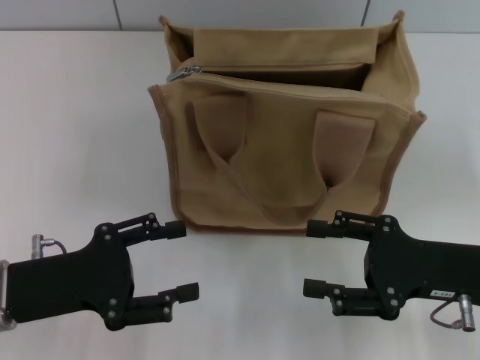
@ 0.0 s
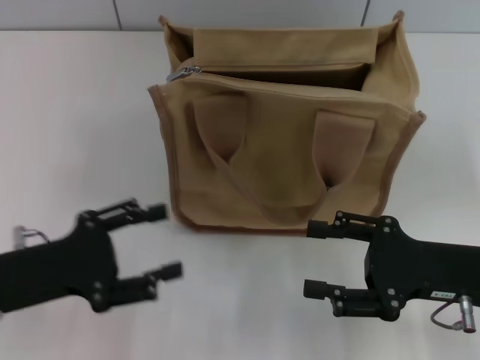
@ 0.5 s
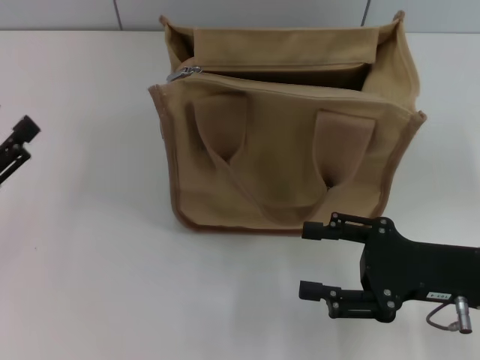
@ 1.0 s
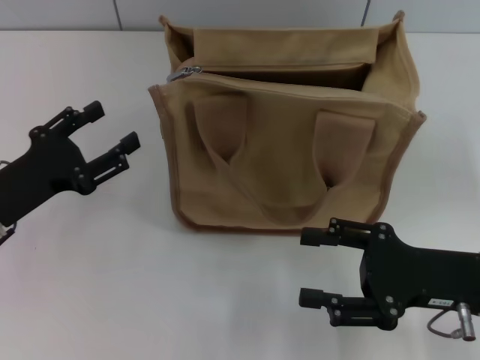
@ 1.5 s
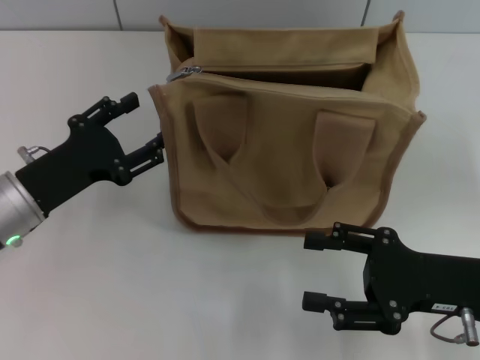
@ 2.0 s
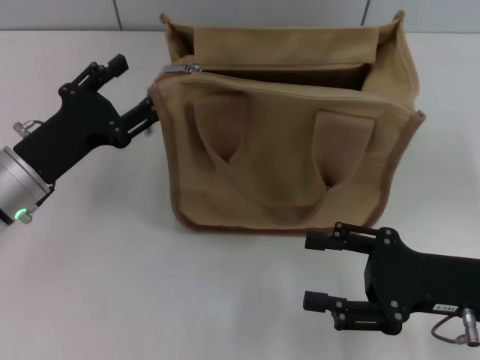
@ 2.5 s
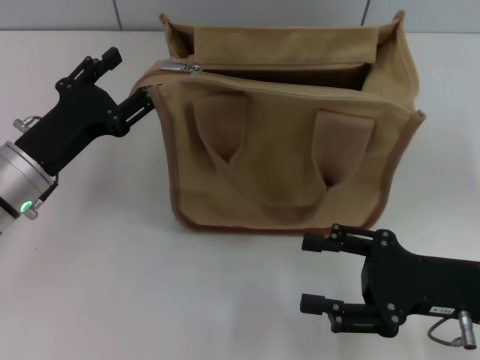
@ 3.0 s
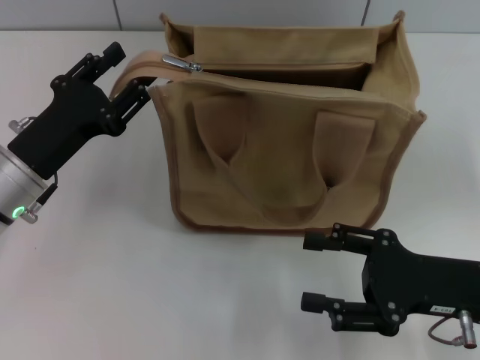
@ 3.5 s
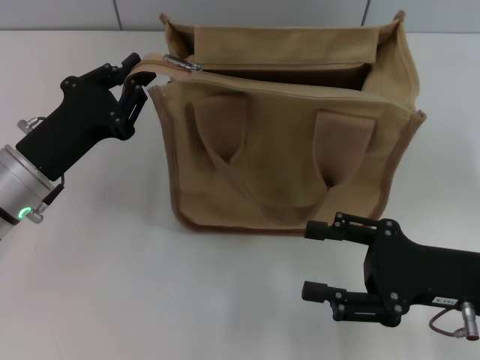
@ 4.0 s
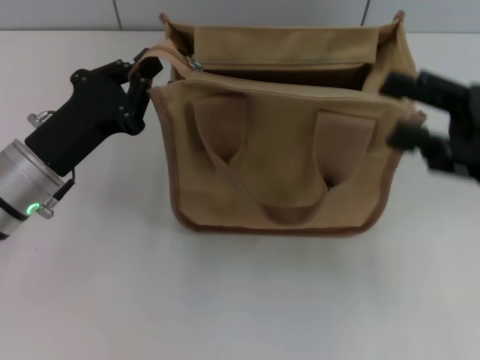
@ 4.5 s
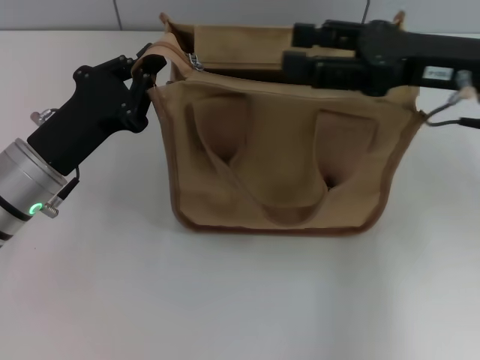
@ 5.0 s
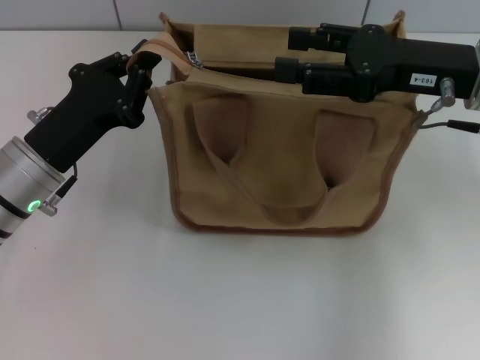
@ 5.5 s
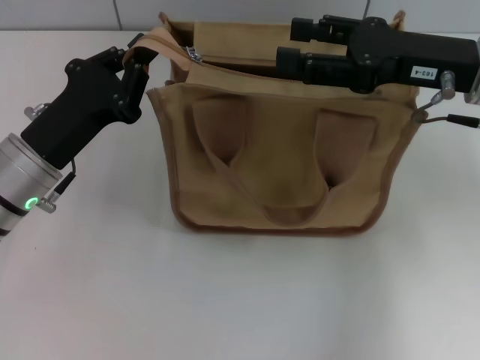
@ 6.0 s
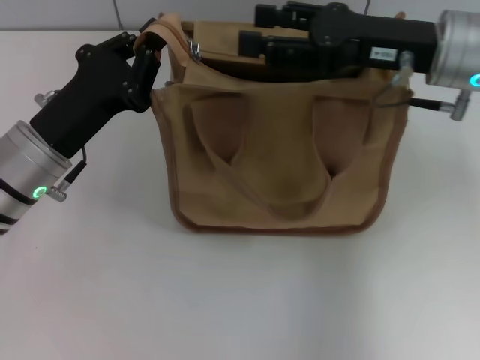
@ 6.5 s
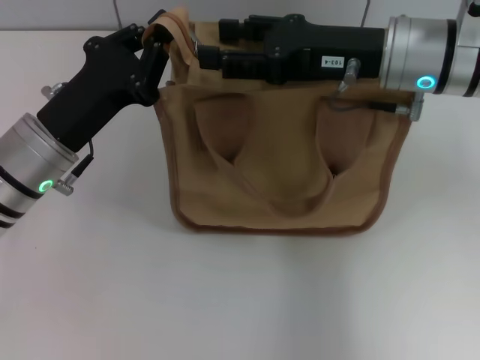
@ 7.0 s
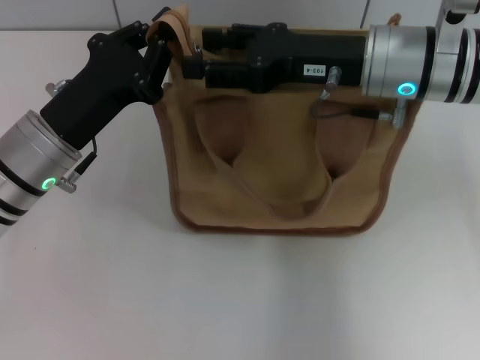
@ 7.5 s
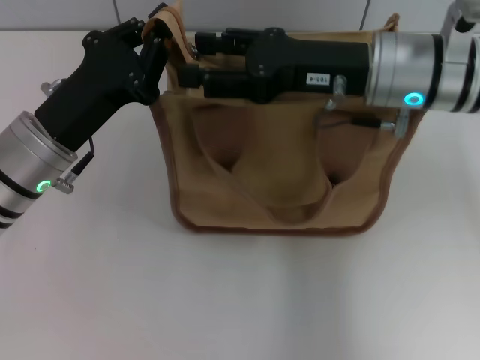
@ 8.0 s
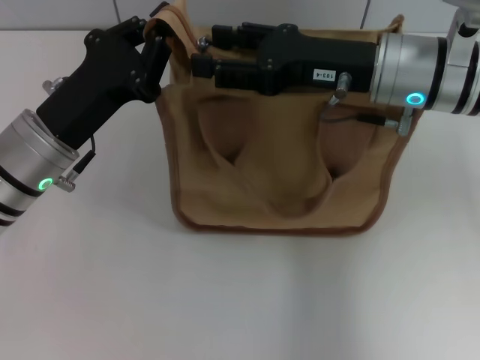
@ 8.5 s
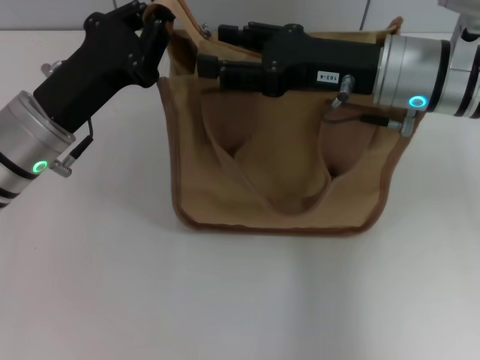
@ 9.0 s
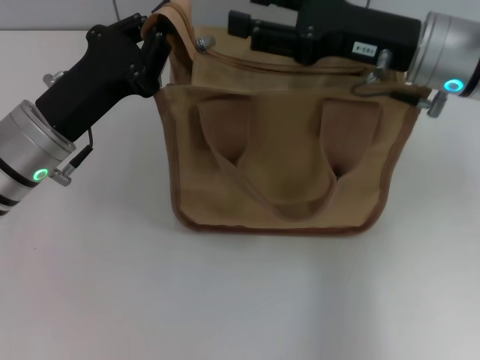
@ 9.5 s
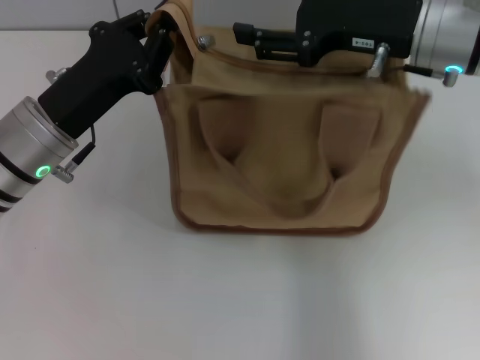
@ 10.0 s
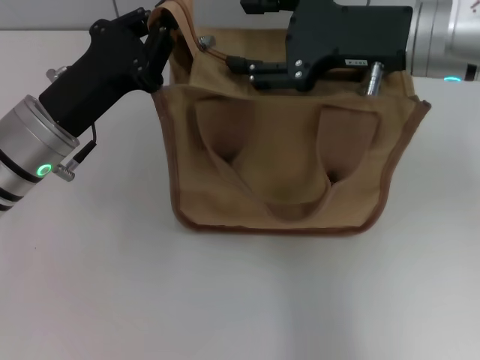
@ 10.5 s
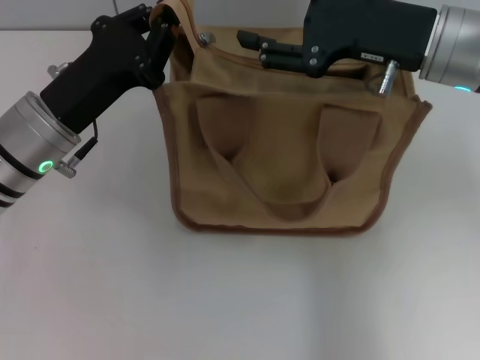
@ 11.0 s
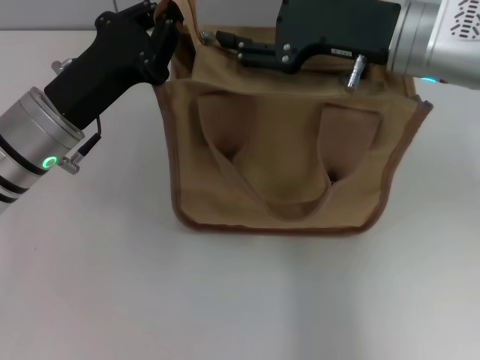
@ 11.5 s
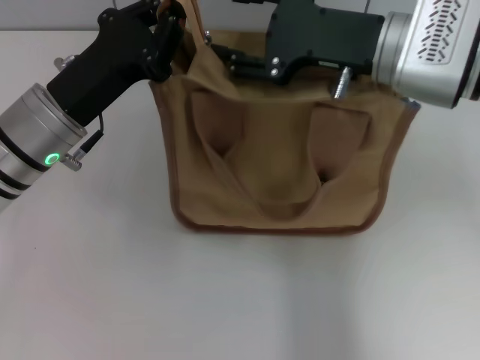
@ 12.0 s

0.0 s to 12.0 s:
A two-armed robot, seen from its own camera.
0.0 to 2.0 s: The left gripper travels forward by some 5 cm, and travels to the left and back again, approximately 10 cm each way.
2.0 to 4.0 s: The left gripper closes up.
4.0 to 6.0 s: The right gripper moves forward and upward, about 15 cm.
6.0 to 8.0 s: The right gripper is displaced to the left by about 10 cm.

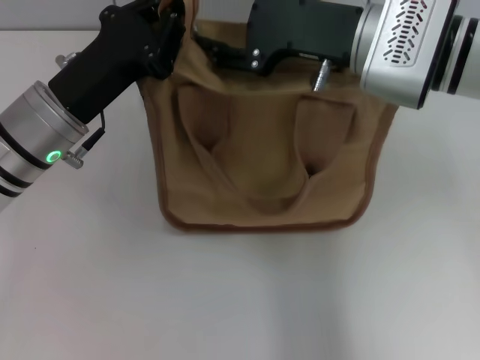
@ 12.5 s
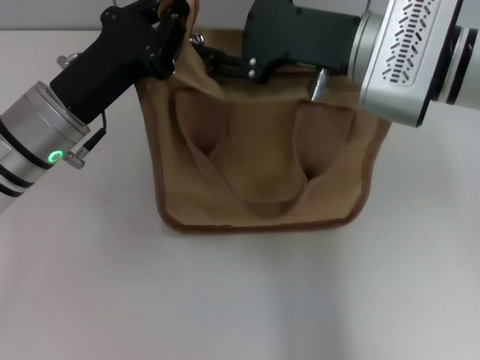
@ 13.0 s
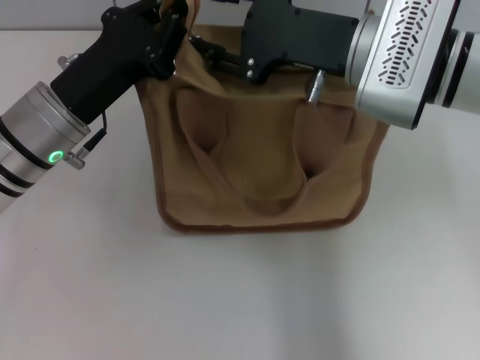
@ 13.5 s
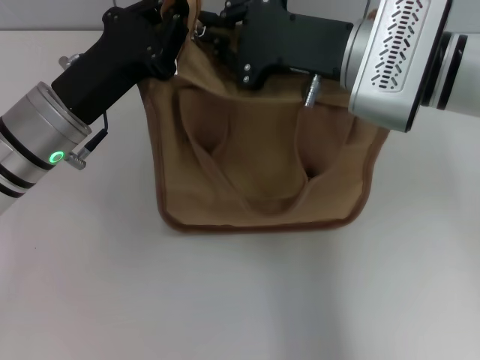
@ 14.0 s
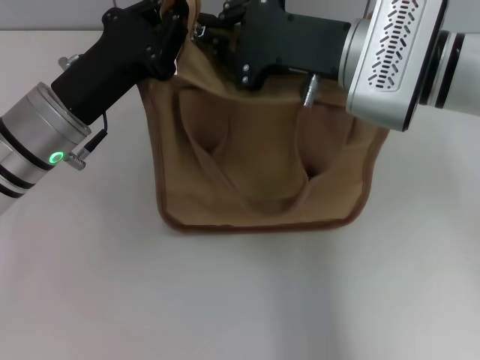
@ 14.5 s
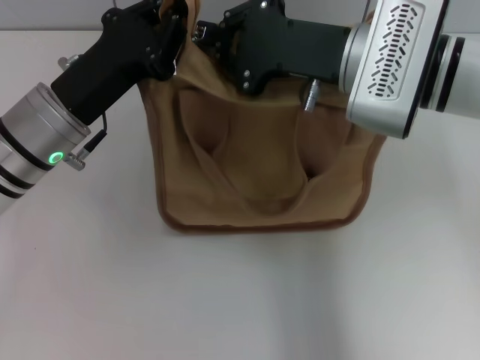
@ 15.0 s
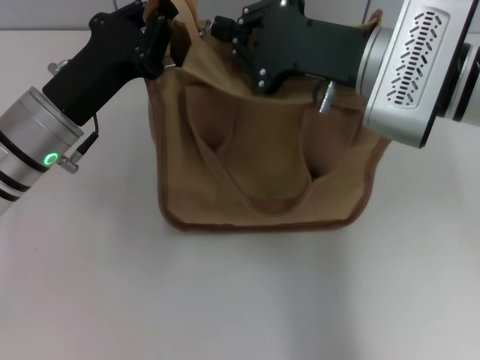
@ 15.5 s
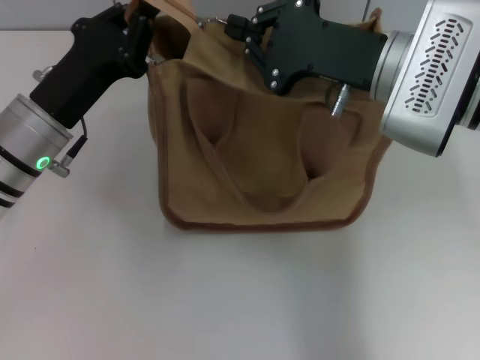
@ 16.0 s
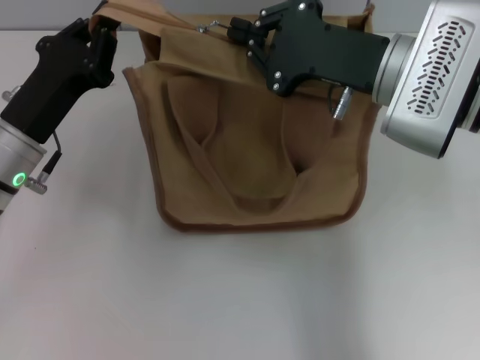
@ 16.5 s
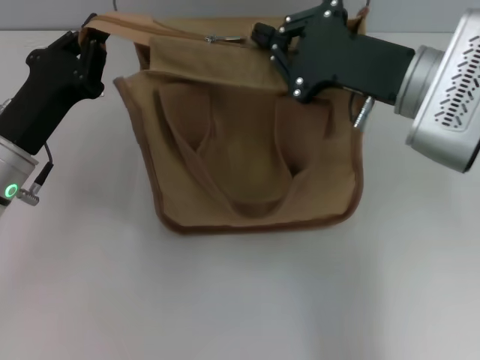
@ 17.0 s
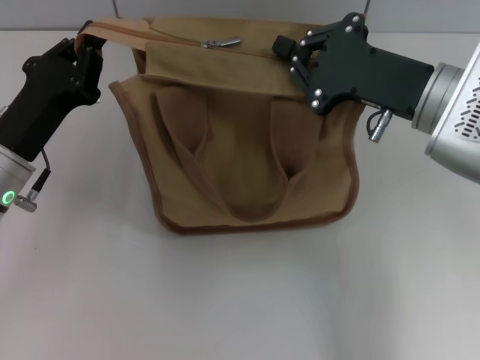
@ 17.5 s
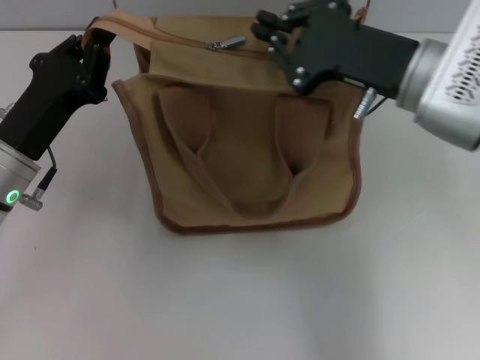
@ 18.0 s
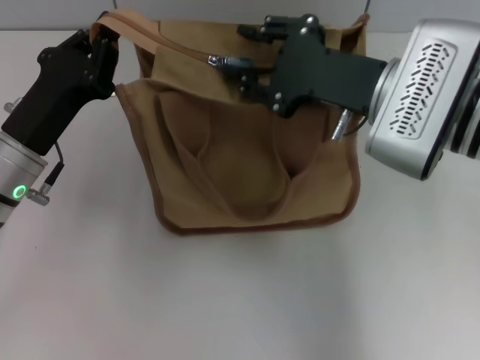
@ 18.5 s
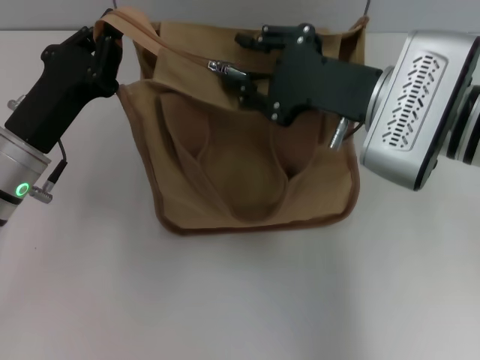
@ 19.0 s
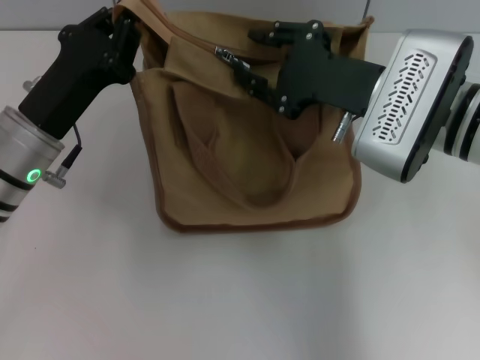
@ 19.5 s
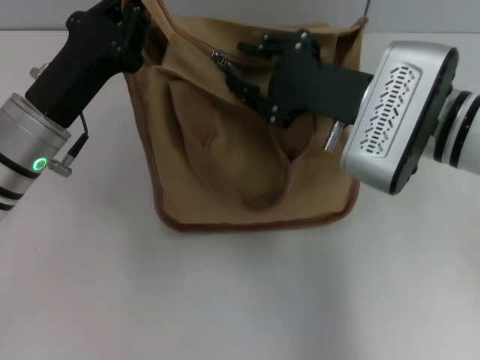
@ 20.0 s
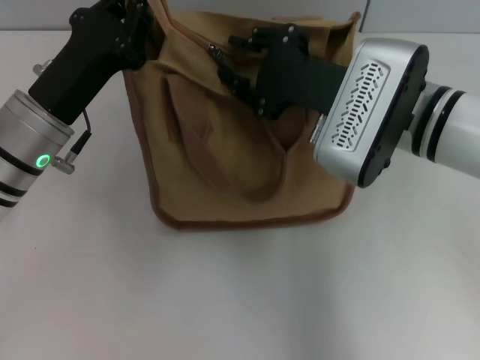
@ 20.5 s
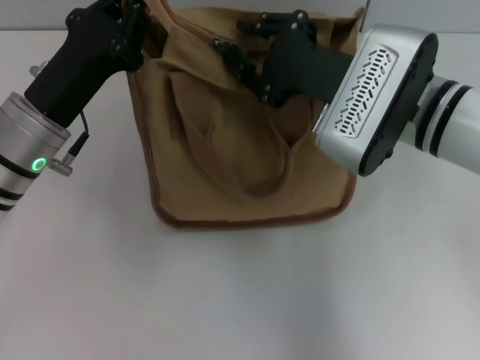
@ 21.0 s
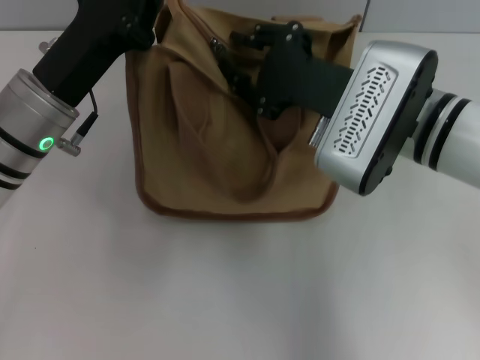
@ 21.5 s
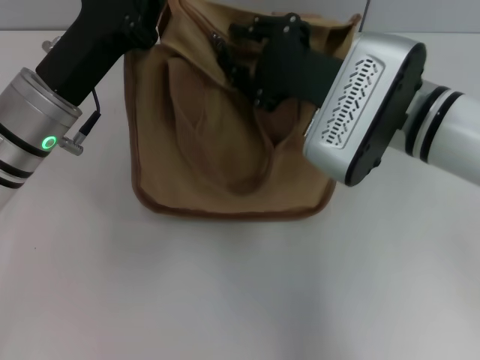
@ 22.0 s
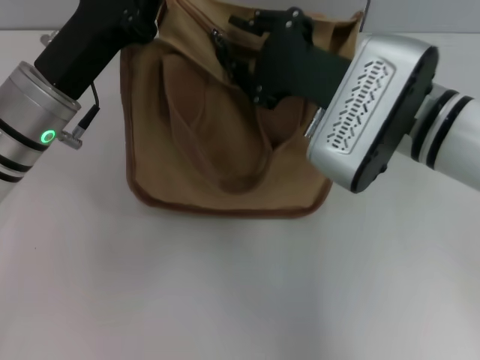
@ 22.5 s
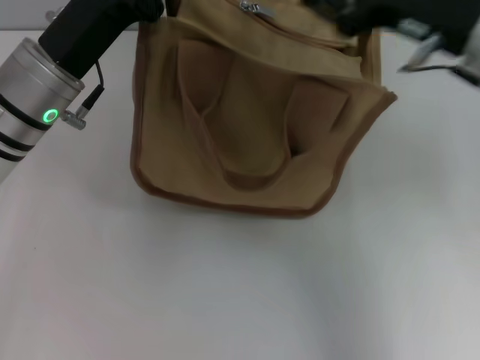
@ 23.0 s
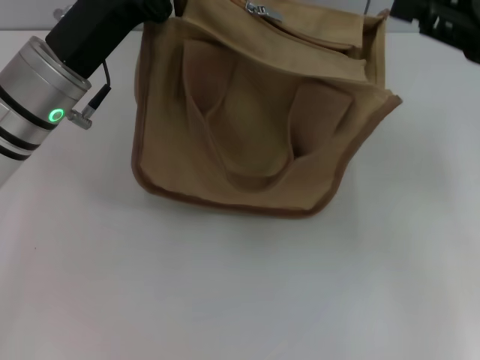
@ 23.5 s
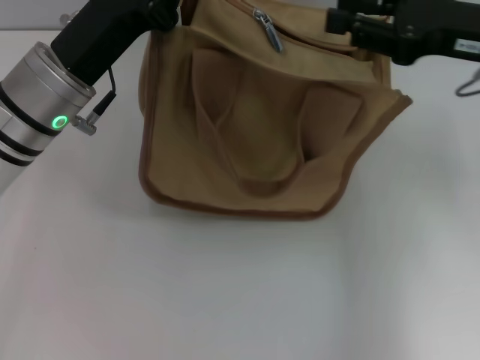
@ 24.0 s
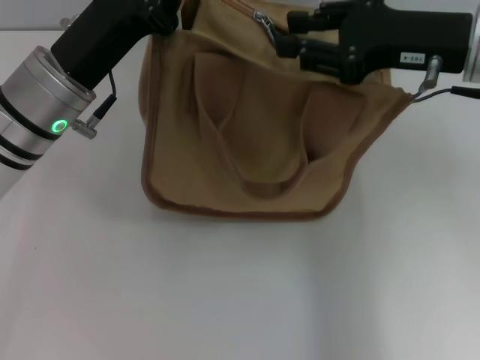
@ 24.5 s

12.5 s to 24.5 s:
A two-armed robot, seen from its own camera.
12.5 to 14.5 s: The right gripper closes up.
16.5 to 18.5 s: The right gripper opens its fingers.
20.5 to 22.5 s: The grippers move only a little.
22.5 to 24.5 s: The right gripper is displaced to the right by approximately 10 cm.

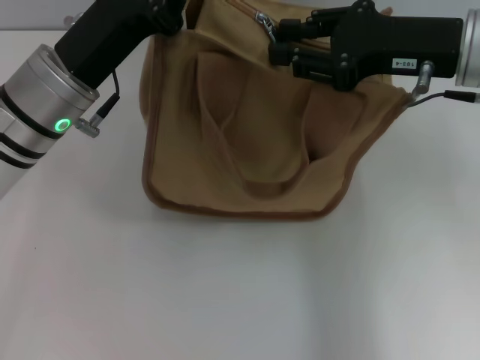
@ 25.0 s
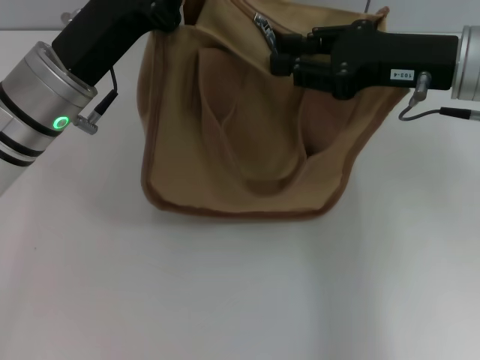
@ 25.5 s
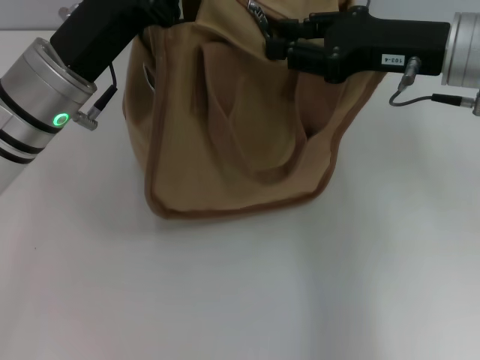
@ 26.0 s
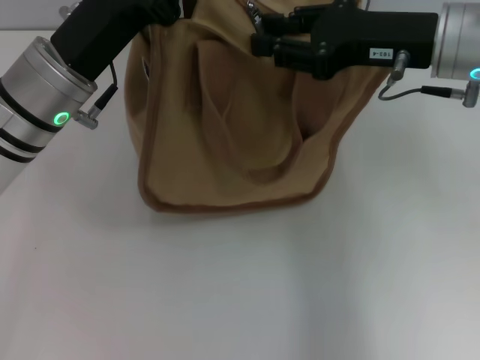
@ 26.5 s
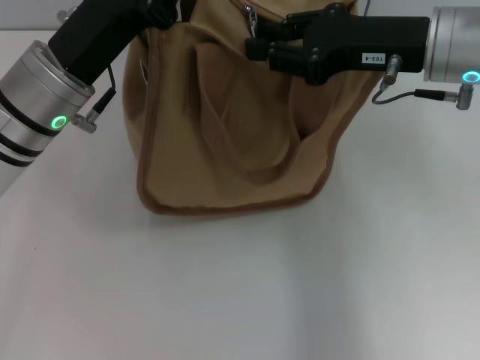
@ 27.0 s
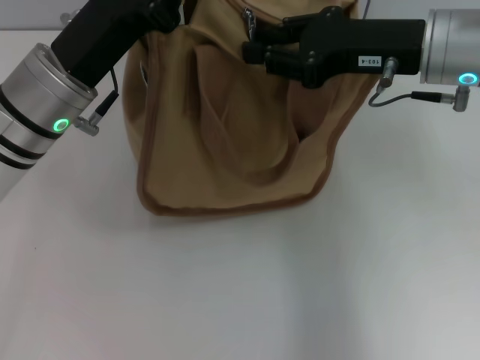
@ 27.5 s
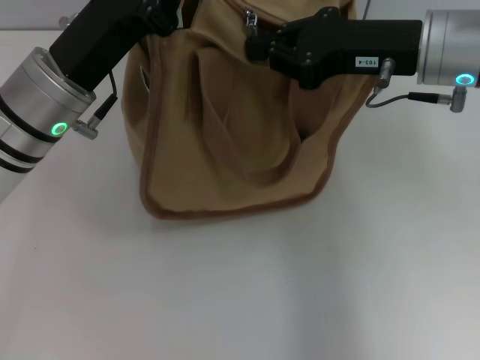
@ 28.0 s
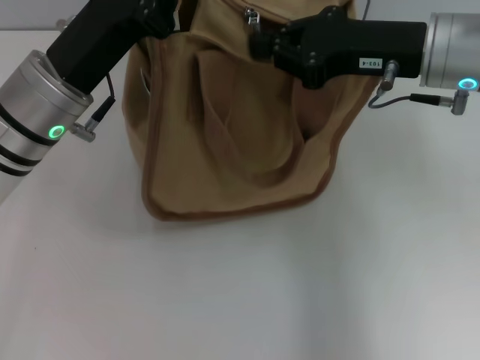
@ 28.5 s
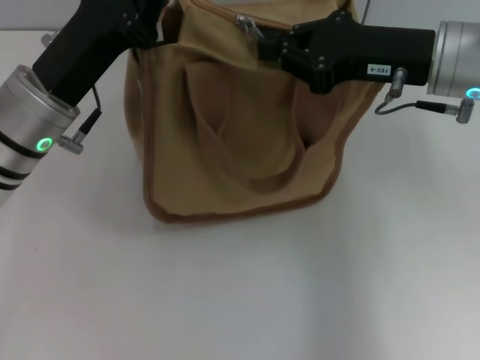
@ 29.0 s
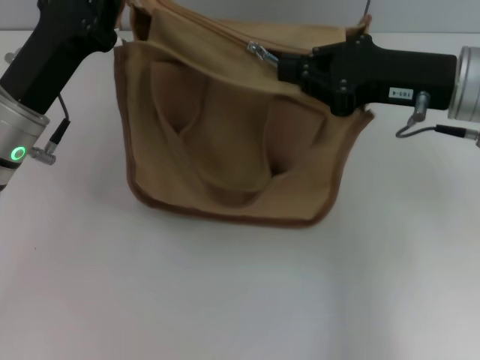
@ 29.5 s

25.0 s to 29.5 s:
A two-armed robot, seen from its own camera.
25.0 to 27.0 s: The grippers stay close to where they were, moving slightly.
27.0 to 29.5 s: The right gripper closes its fingers; the left gripper ends up about 5 cm from where it was.
